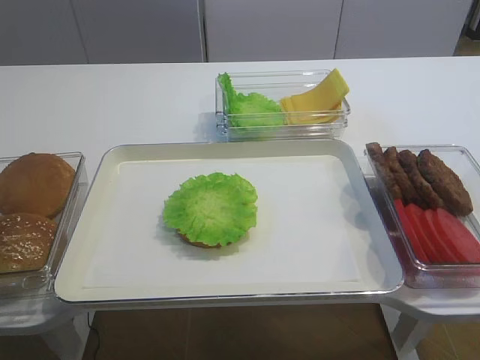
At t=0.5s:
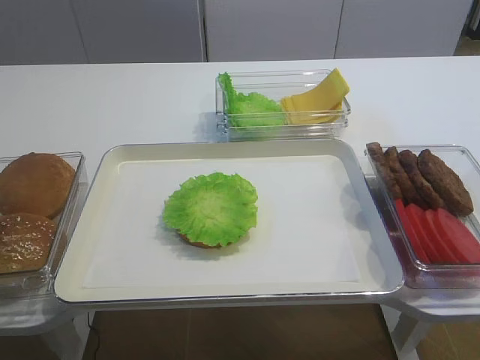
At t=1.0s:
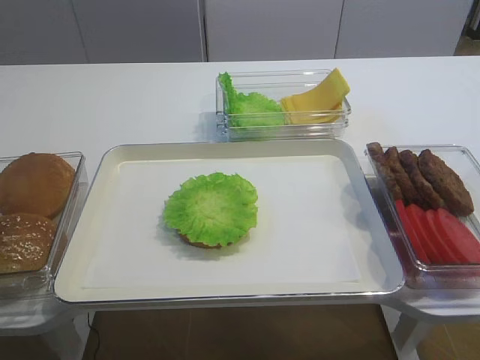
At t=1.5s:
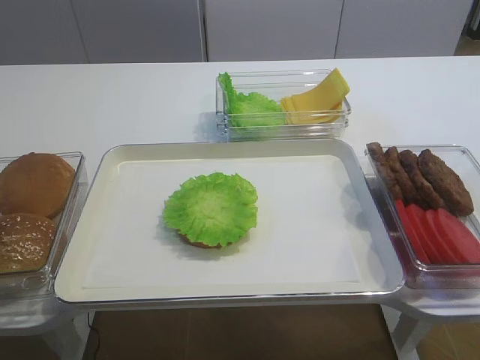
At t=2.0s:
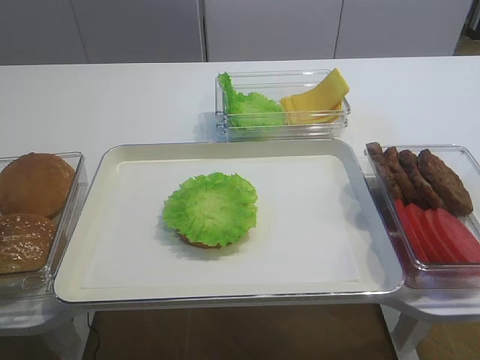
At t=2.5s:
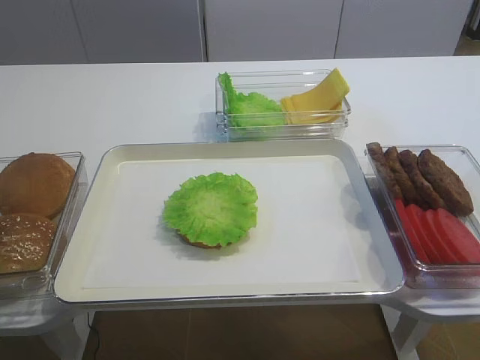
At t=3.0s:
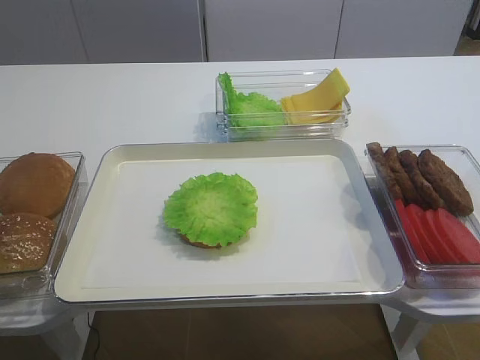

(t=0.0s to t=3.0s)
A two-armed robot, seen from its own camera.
t=1.5s - t=3.0s: The two grippers keep their place.

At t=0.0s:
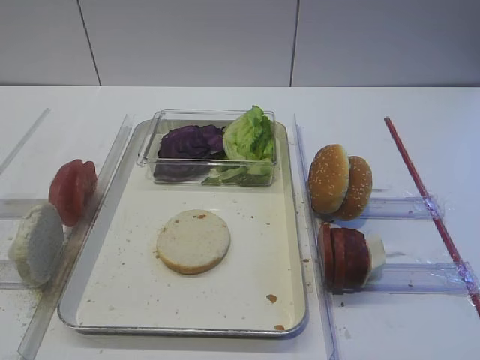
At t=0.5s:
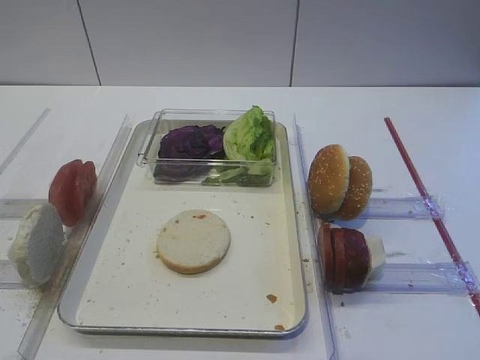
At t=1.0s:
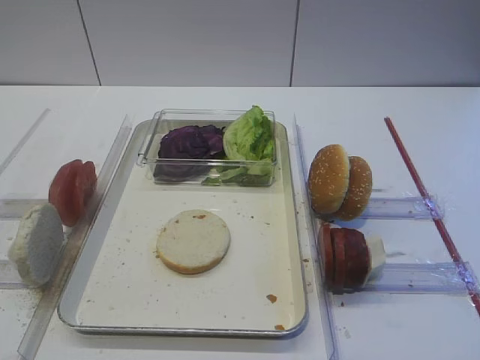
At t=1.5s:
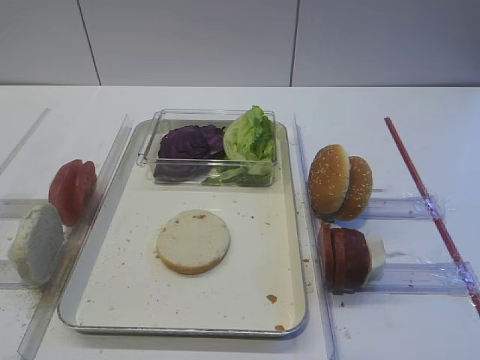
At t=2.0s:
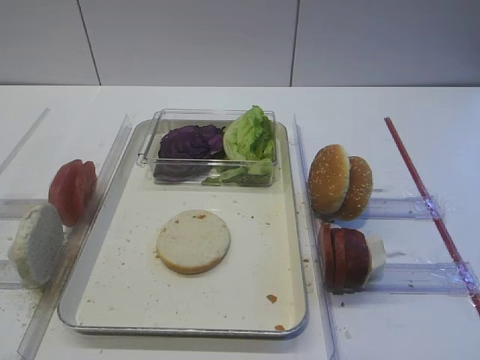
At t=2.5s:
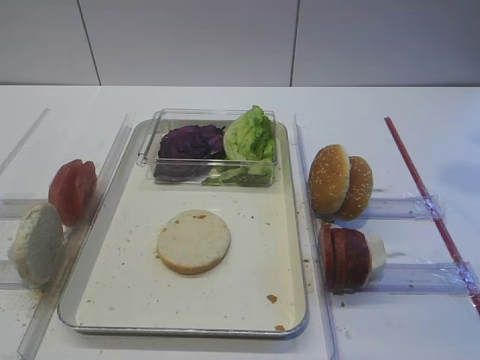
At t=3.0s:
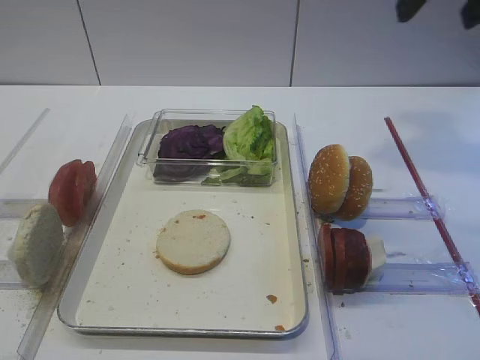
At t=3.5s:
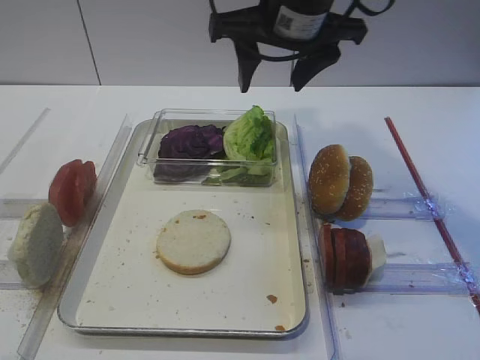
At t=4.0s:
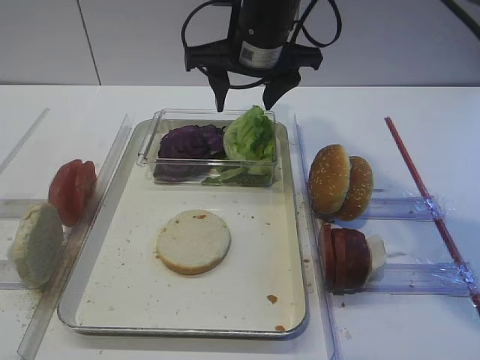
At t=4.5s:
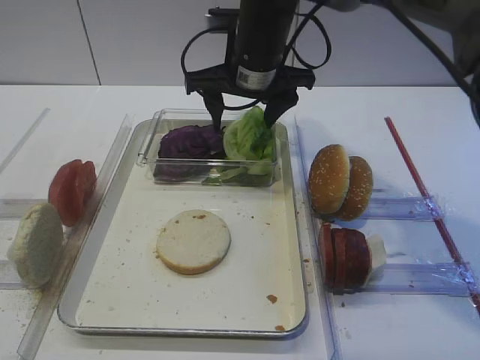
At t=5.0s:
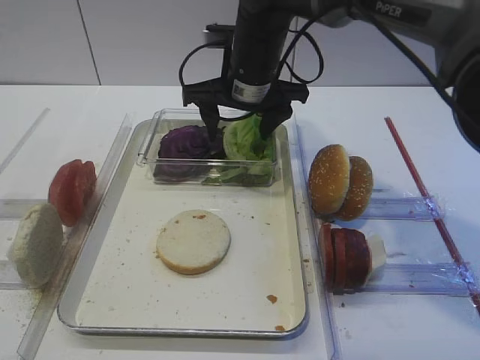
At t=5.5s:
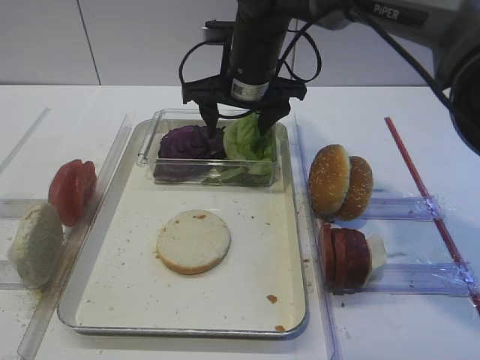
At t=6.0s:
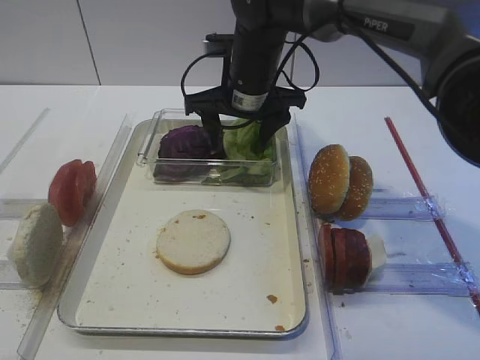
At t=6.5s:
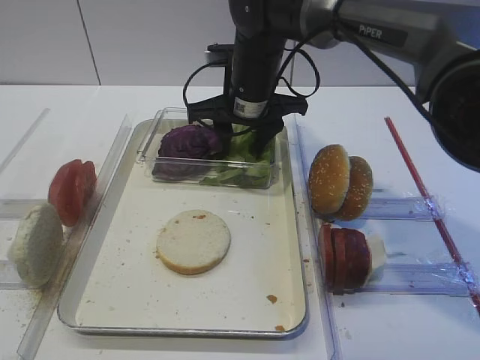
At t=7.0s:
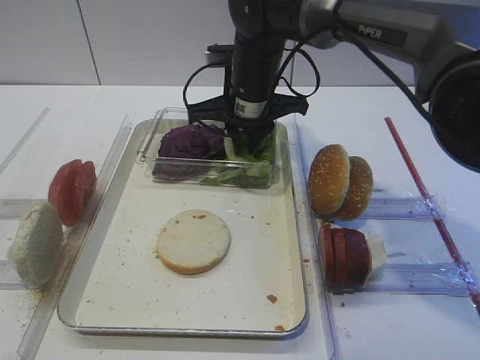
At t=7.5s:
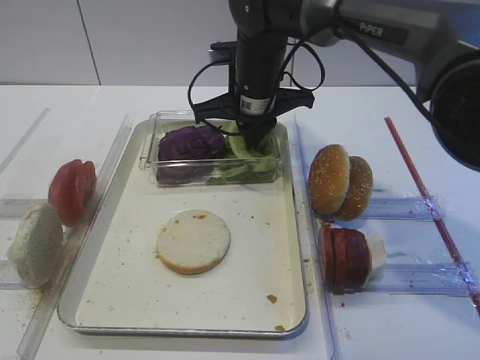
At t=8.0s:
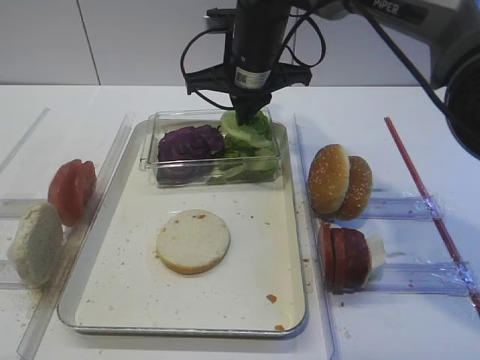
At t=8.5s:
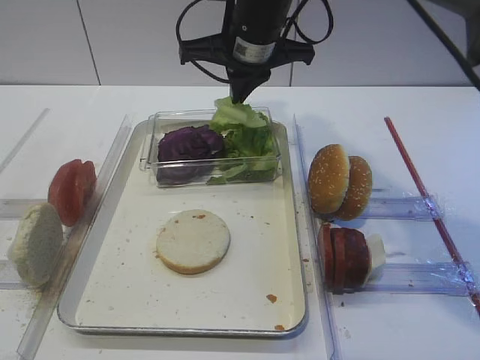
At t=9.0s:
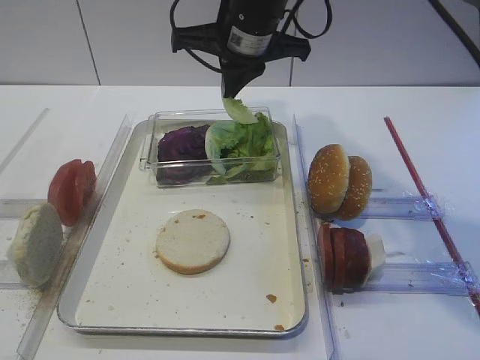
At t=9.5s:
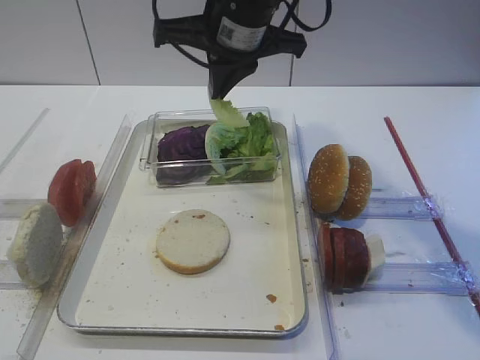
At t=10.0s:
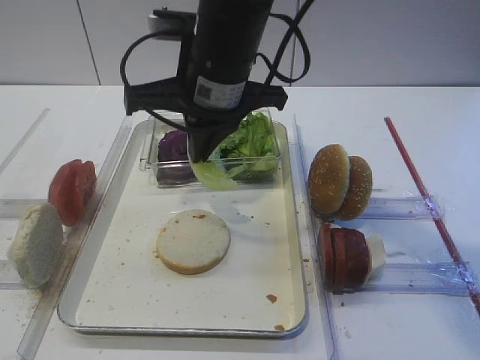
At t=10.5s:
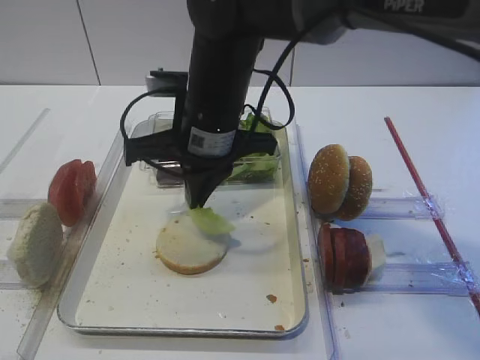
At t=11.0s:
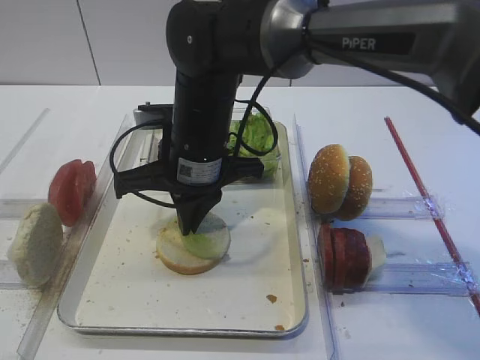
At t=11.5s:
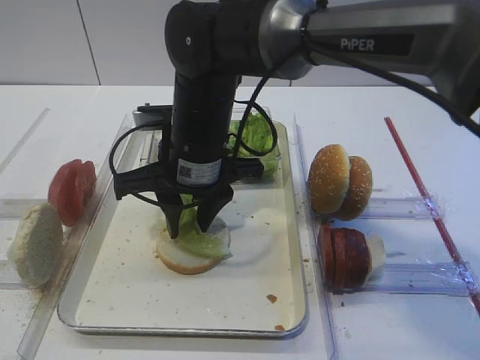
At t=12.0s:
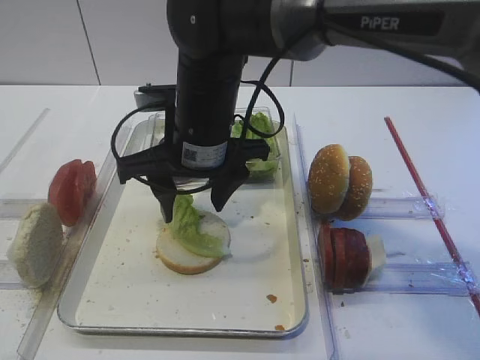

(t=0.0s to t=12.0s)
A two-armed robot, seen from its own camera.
Step, t=0.0s - t=9.0s: Pick up the lettuce leaf with the right gripper.
t=2.0s - t=4.0s: The right gripper moves forward and to the left, some 35 cm.
t=4.0s - t=6.0s: The right gripper goes approximately 5 cm downward.
t=6.0s - t=8.0s: The right gripper closes its fingers.
t=8.0s - t=10.0s: The right gripper shifts roughly 10 cm backward.
t=10.0s - t=12.0s: The right gripper shifts some 5 cm downward, and opens.

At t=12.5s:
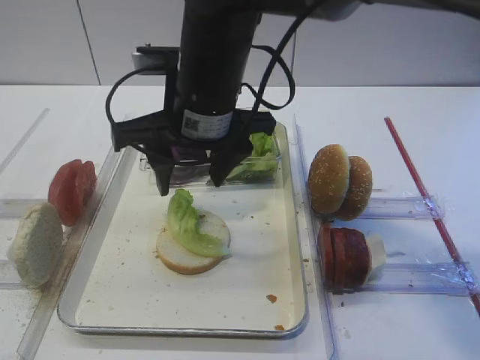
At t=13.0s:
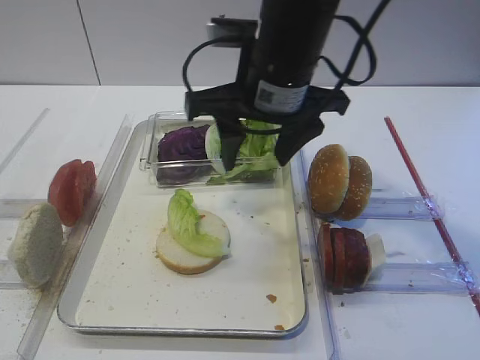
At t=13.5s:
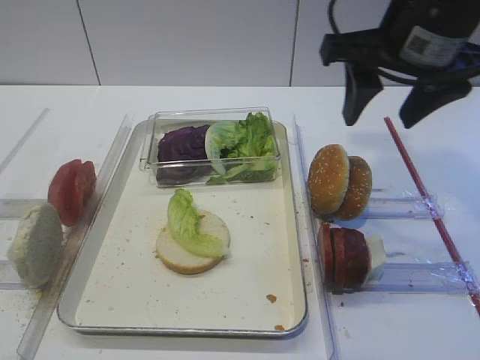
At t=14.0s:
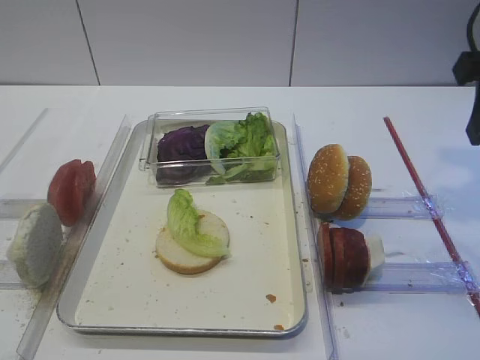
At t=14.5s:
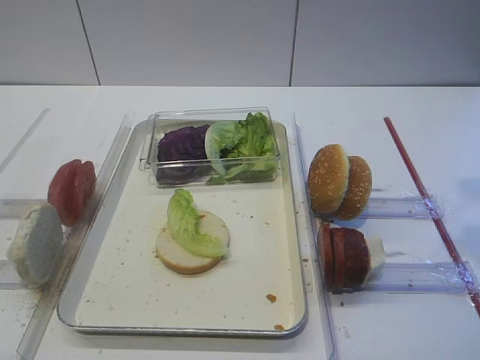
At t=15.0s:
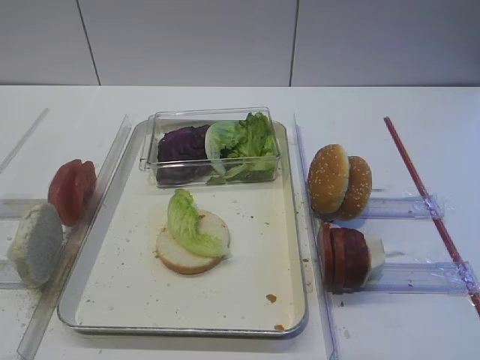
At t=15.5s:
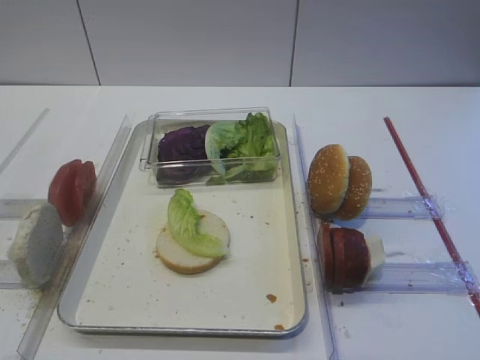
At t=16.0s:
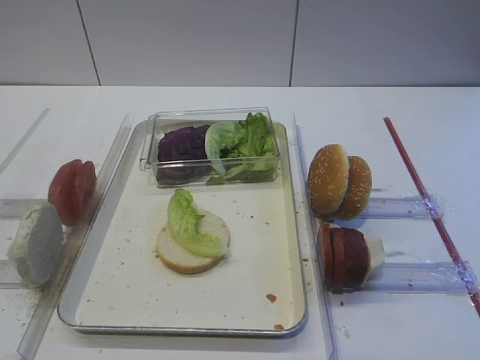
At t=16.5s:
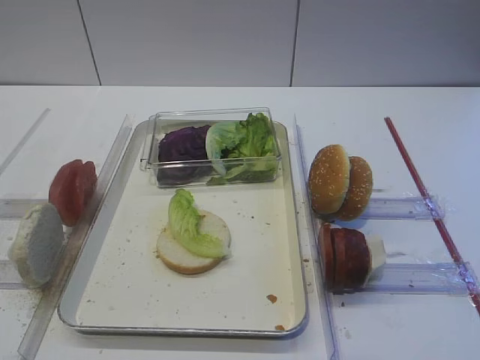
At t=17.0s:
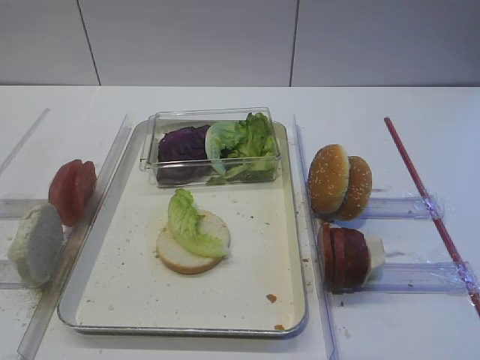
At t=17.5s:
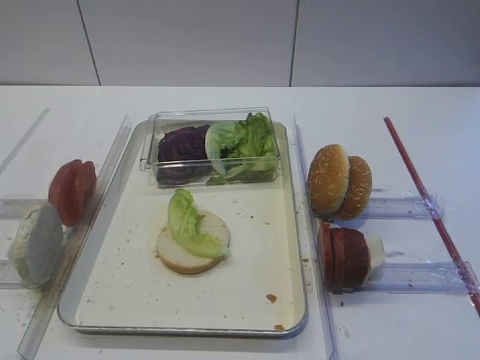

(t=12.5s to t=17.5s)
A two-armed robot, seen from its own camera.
t=12.5s - t=15.0s: The right gripper travels to the right and backward by some 35 cm.

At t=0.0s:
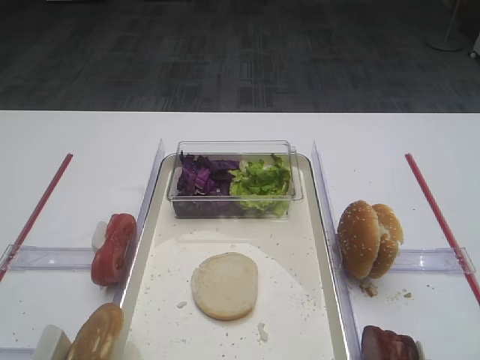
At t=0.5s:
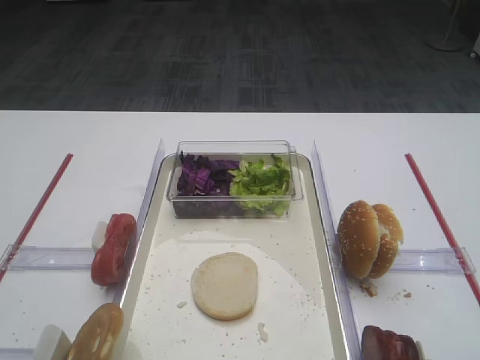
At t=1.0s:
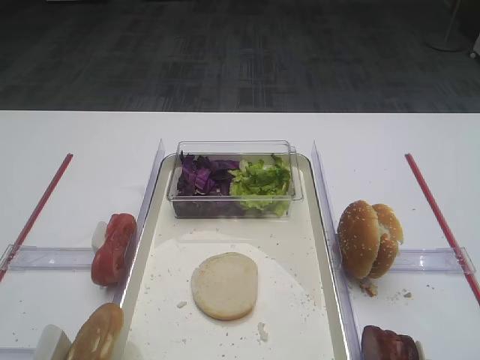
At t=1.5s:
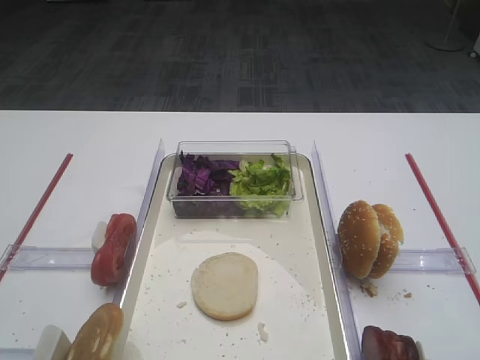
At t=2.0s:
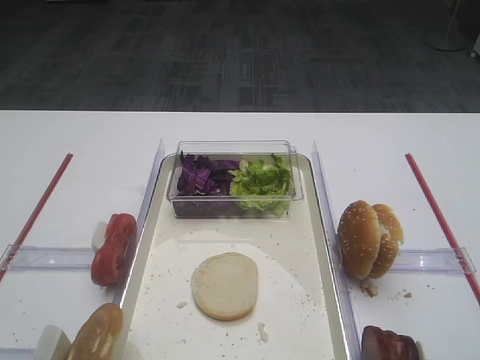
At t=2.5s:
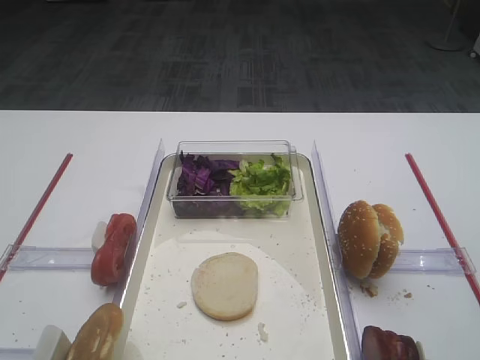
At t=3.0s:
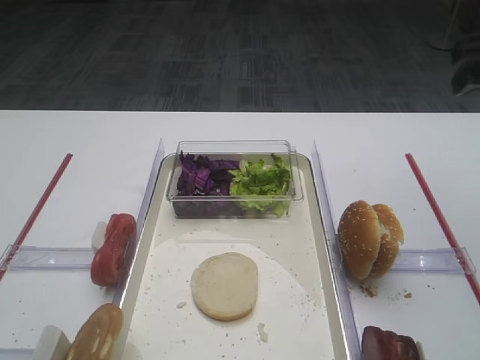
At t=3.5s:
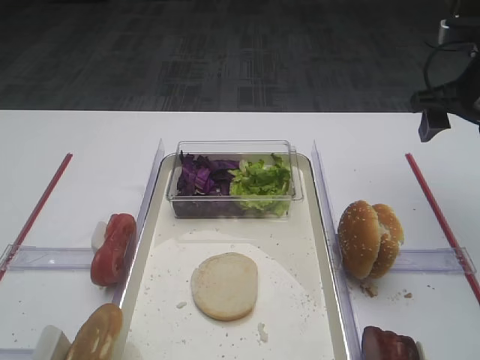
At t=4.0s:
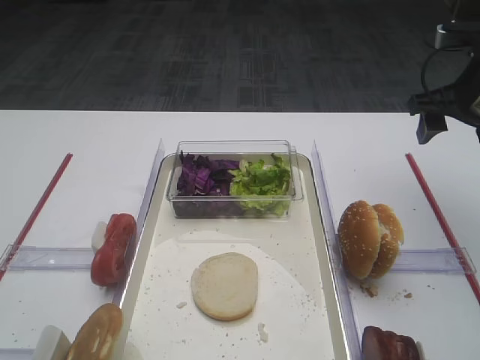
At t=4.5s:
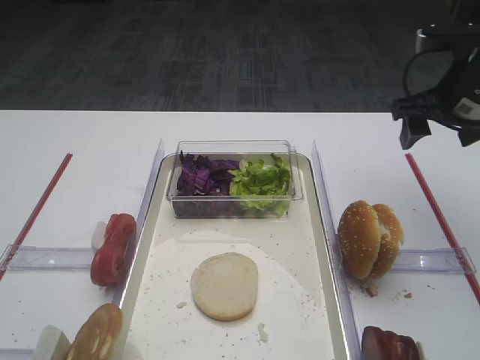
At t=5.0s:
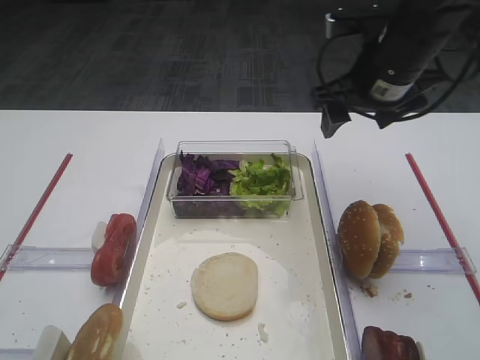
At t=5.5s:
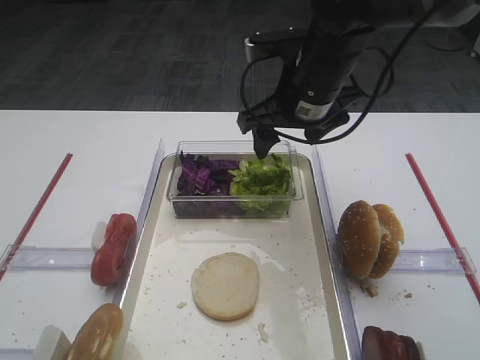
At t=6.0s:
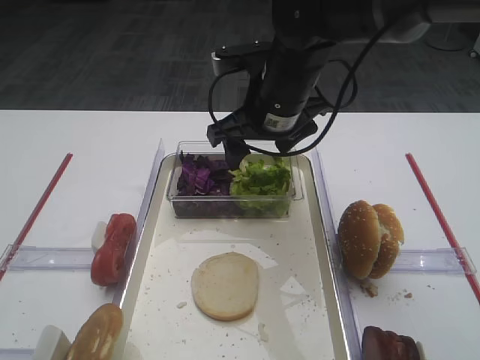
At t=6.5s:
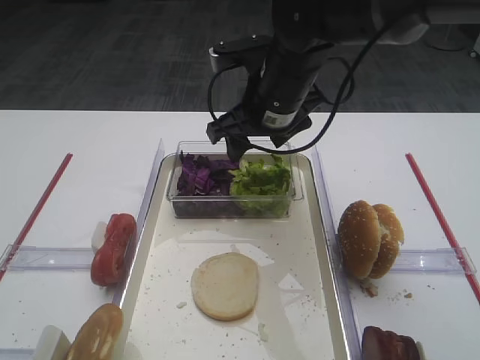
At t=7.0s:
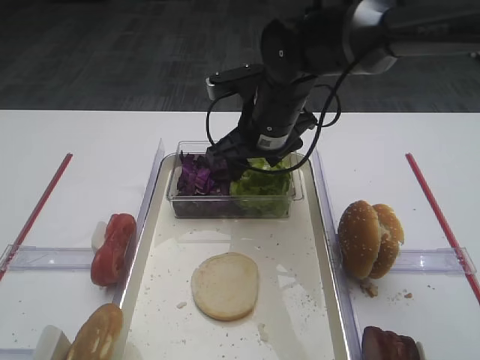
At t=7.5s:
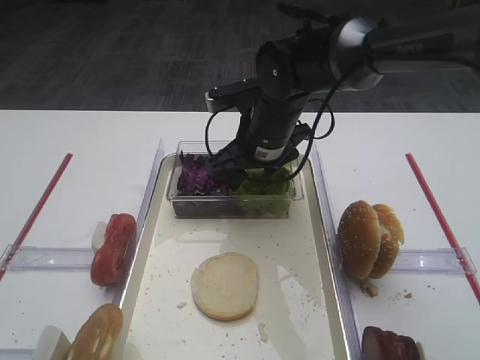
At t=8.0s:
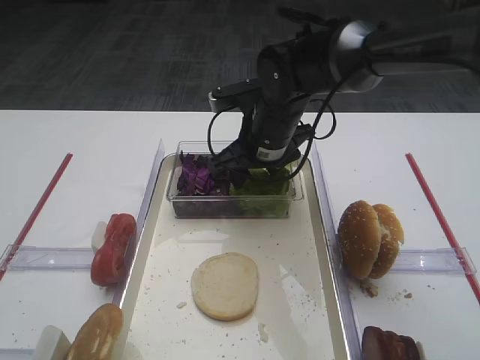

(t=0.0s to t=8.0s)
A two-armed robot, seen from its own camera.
t=2.0s - t=4.0s: The right gripper travels forward by some 35 cm.
t=4.0s - t=6.0s: The right gripper moves to the left, roughly 25 cm.
t=6.0s - t=8.0s: The right gripper travels downward by roughly 5 cm.
